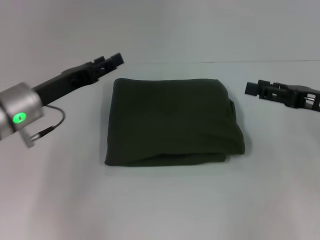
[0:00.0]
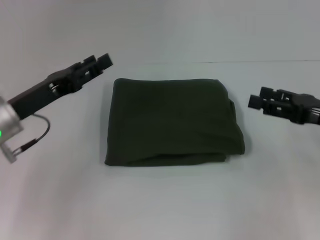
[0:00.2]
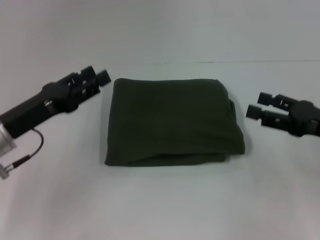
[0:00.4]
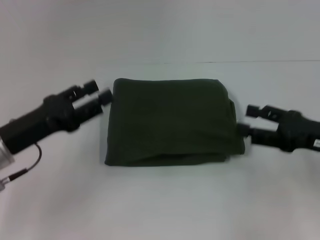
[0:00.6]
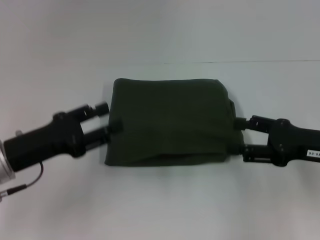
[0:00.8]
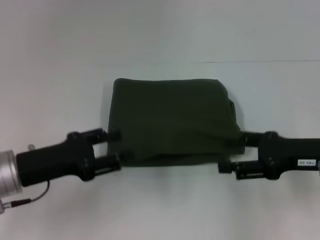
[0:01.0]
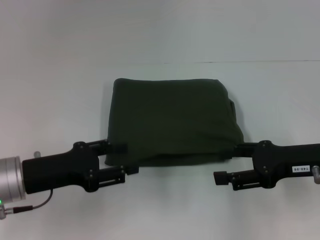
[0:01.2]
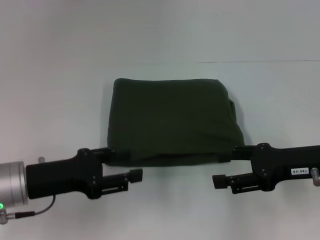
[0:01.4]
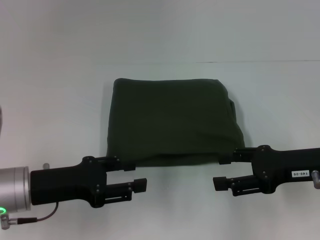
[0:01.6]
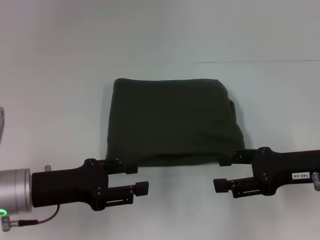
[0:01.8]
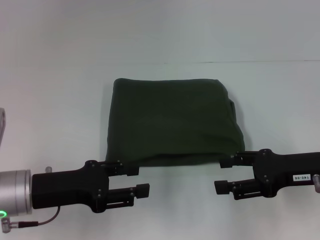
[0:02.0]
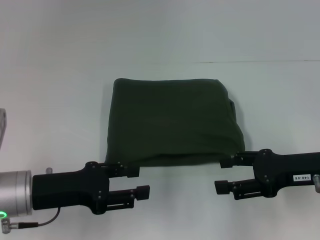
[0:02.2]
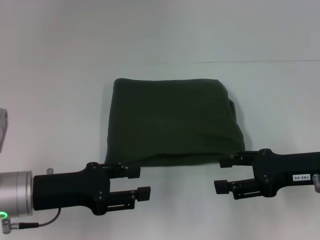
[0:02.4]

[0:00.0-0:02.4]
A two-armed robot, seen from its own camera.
0:00.0 to 0:01.2: The left gripper moves backward, about 10 cm. The right gripper shifts by roughly 5 cm.
0:01.2 to 0:02.4: The grippers make only small movements.

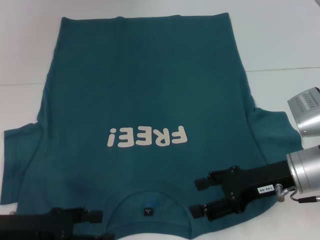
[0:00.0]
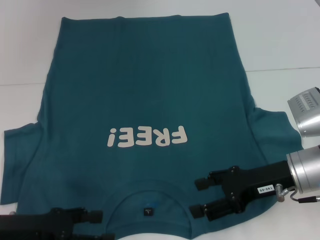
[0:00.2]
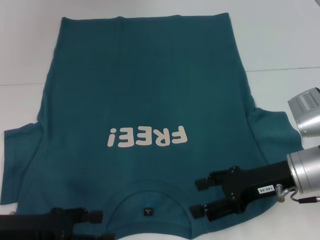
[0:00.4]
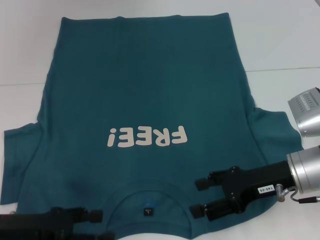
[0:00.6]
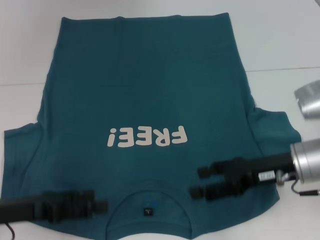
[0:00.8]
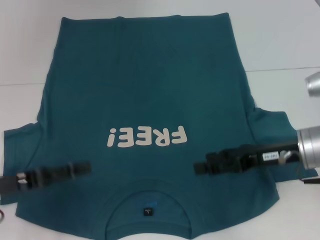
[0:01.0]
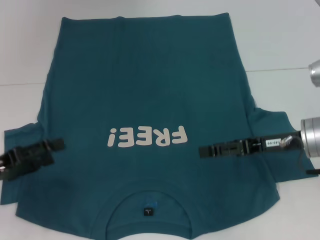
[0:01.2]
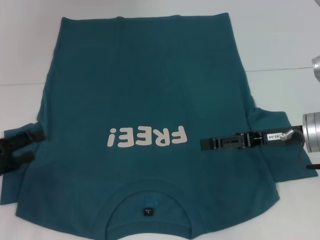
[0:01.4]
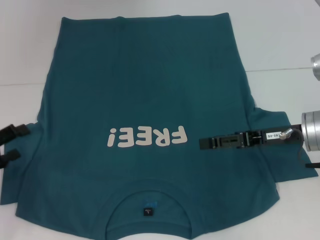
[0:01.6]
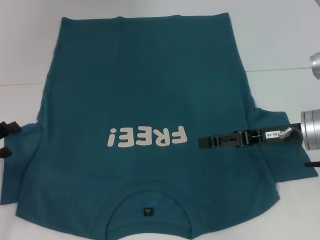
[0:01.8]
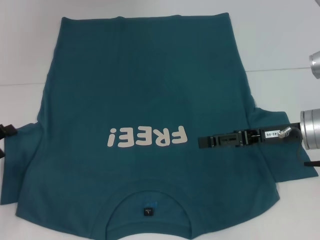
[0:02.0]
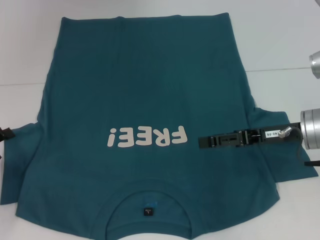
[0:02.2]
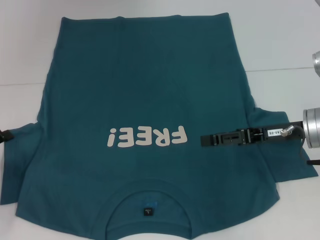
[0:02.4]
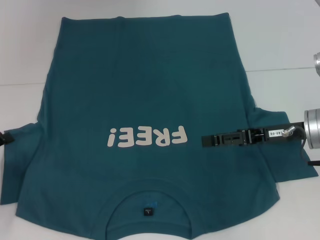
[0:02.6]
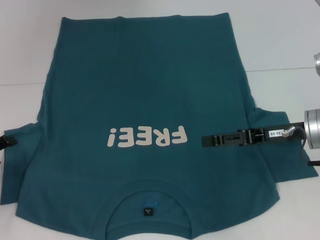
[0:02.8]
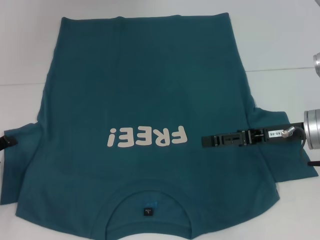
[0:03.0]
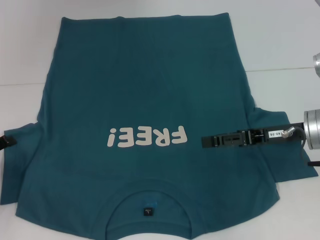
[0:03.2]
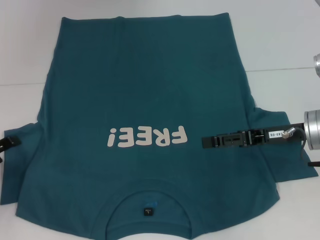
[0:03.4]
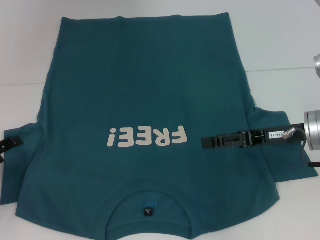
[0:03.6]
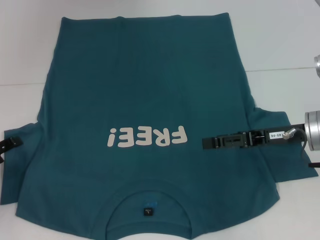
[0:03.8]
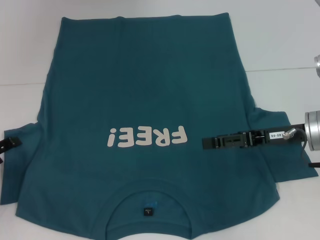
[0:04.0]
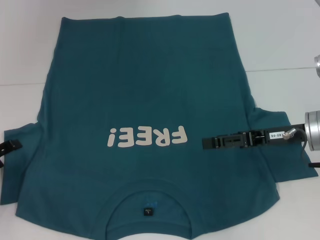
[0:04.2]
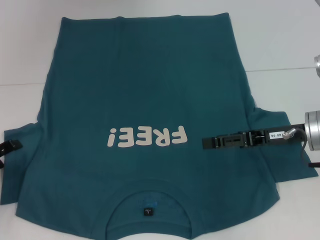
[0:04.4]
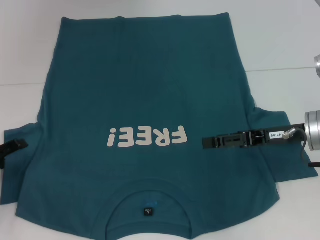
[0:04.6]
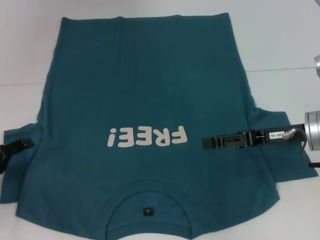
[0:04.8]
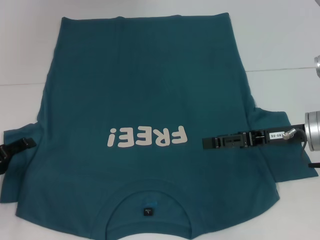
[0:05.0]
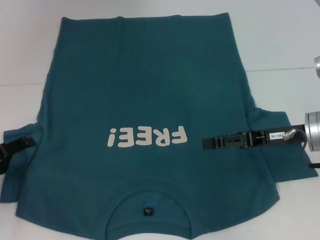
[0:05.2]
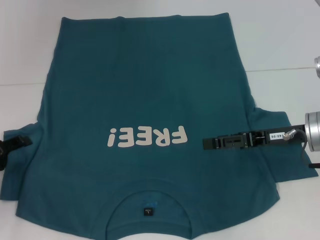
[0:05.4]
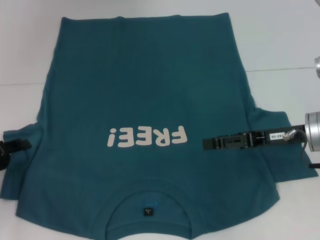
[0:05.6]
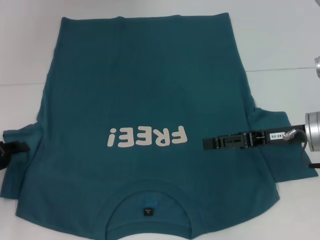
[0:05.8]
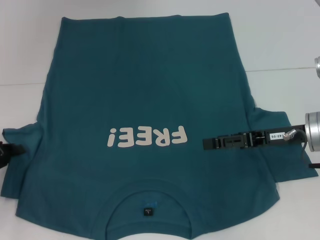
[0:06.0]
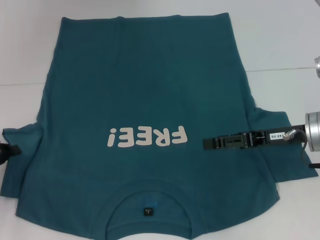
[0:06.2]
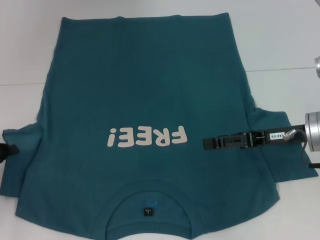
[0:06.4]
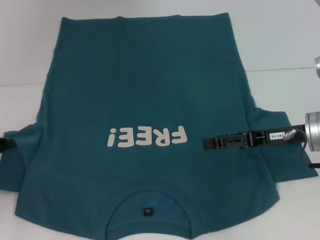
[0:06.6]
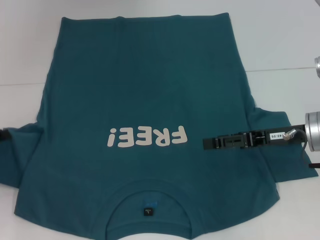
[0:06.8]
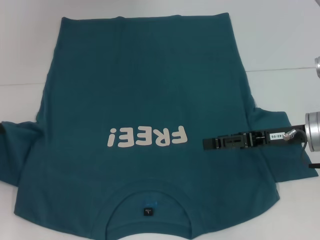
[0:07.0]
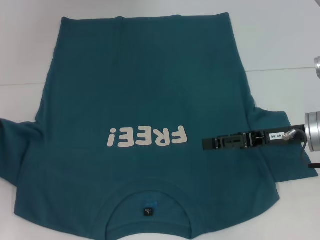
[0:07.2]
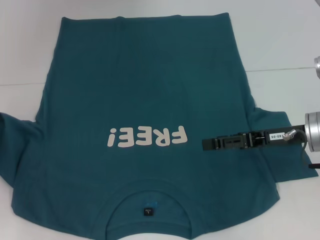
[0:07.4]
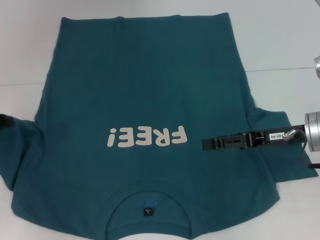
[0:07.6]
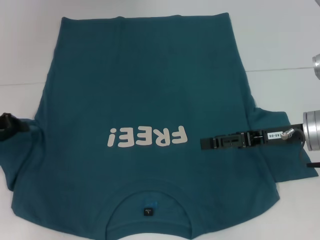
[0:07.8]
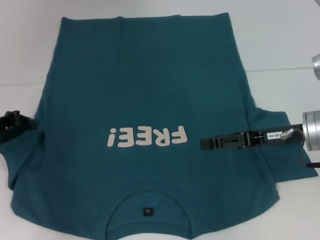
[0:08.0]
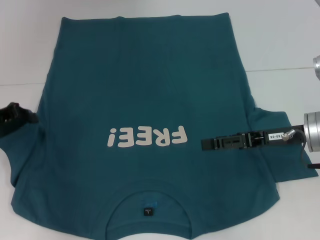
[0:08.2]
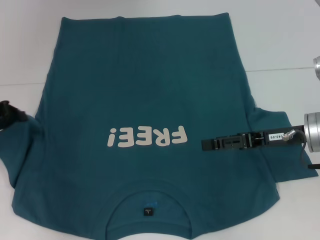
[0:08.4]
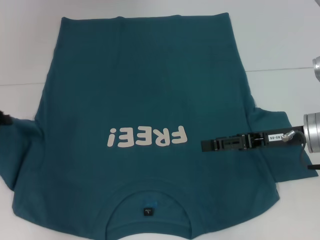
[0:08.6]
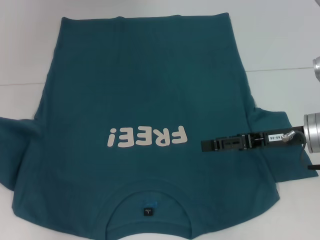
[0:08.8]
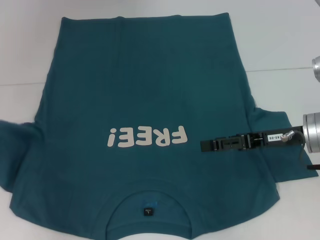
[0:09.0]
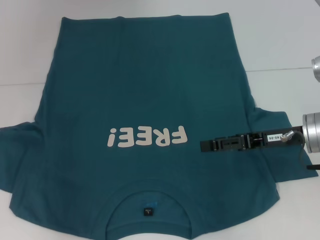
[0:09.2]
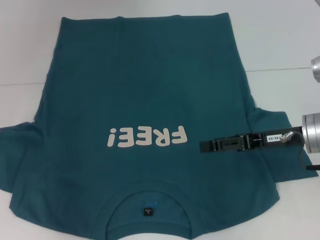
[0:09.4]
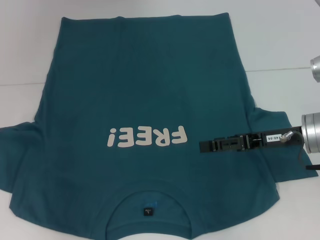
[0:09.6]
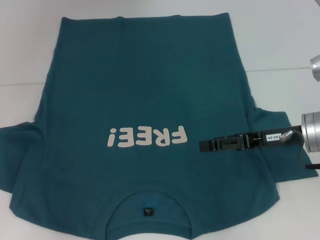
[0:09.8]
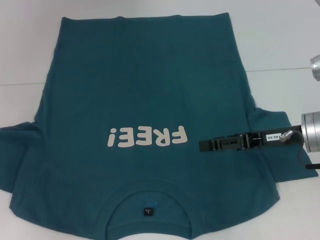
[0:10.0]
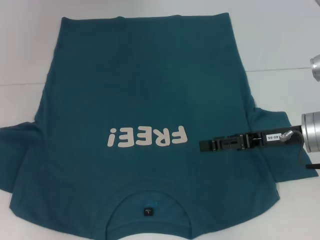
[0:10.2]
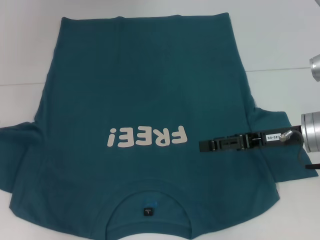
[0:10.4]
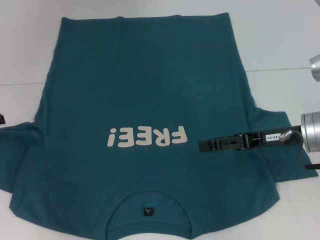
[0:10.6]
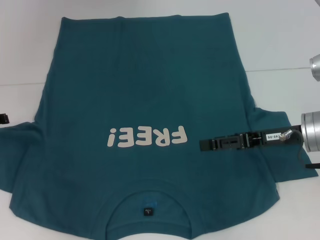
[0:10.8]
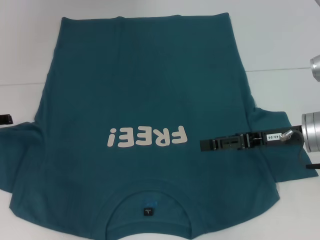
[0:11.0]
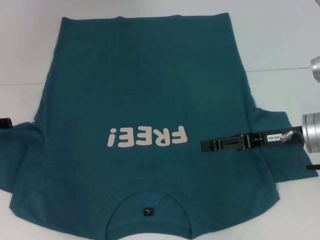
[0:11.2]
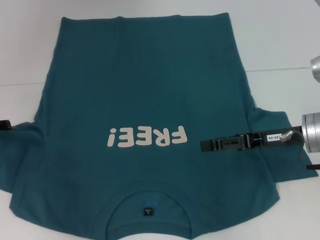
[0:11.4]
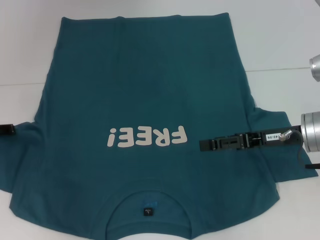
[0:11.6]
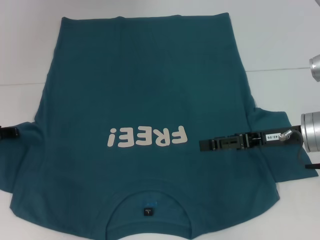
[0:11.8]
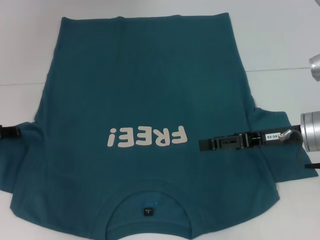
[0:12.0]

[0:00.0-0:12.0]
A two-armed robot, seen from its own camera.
0:00.0 to 0:01.6: The right gripper shifts by roughly 5 cm, while the left gripper heads to the left, covering about 10 cm.
0:01.6 to 0:03.0: The grippers stay close to where they were, moving slightly.
0:03.0 to 0:04.4: The two grippers keep their place.
0:04.4 to 0:06.0: The left gripper closes up.
0:06.0 to 0:07.6: The left gripper travels upward by some 5 cm.
0:07.6 to 0:09.0: The grippers stay close to where they were, moving slightly.

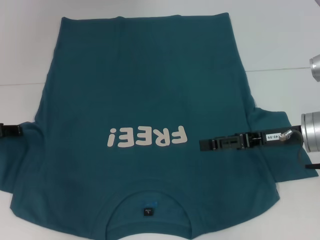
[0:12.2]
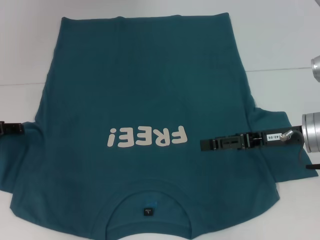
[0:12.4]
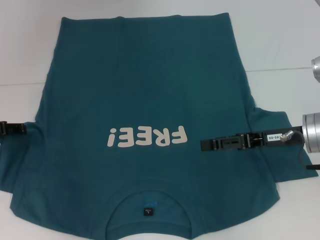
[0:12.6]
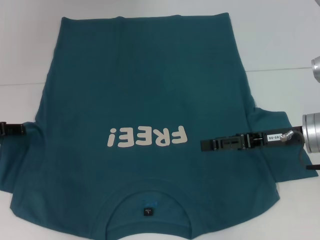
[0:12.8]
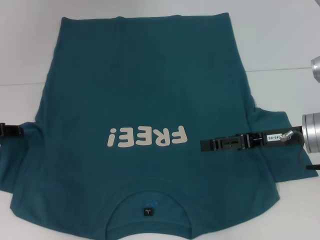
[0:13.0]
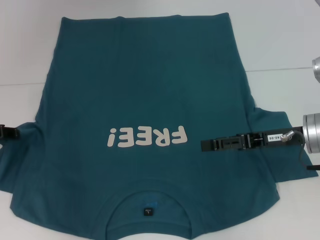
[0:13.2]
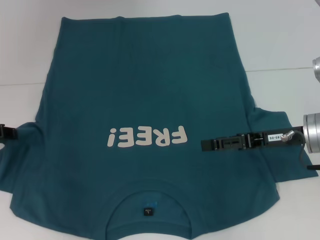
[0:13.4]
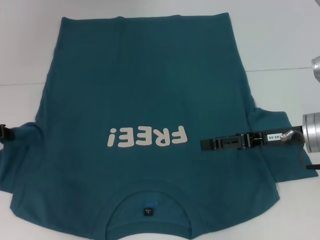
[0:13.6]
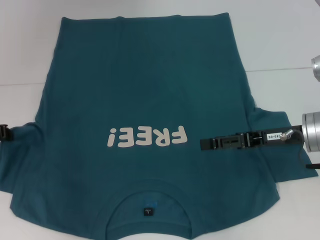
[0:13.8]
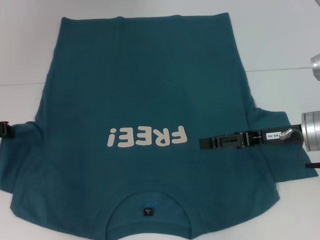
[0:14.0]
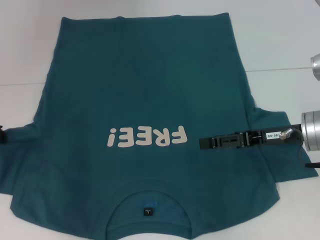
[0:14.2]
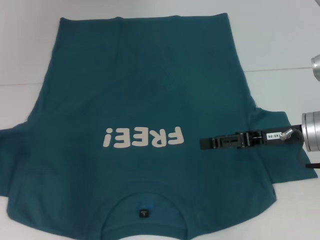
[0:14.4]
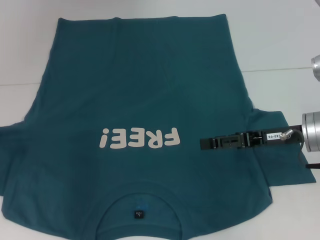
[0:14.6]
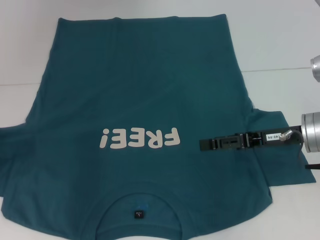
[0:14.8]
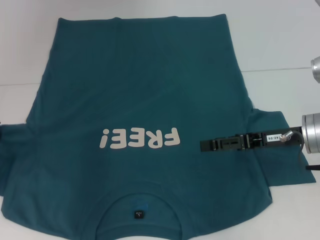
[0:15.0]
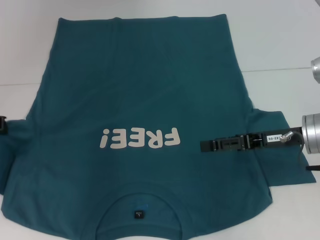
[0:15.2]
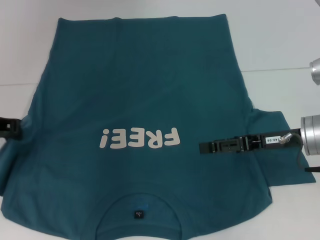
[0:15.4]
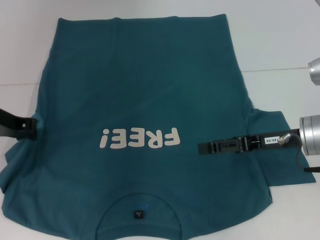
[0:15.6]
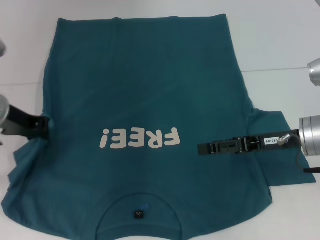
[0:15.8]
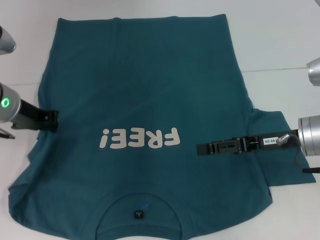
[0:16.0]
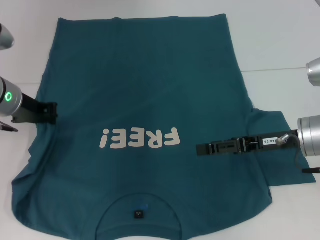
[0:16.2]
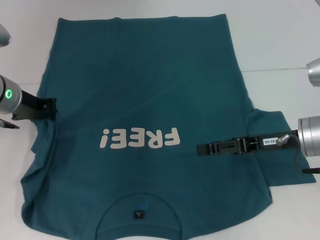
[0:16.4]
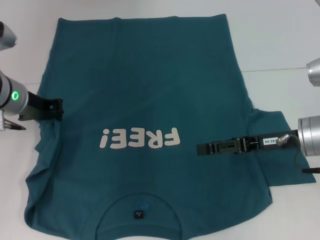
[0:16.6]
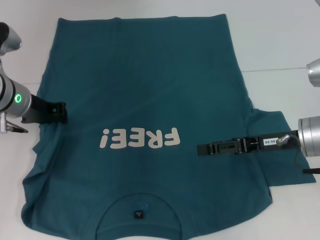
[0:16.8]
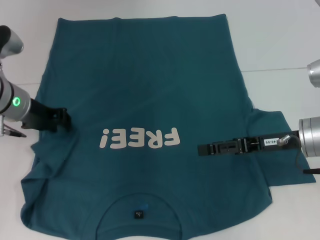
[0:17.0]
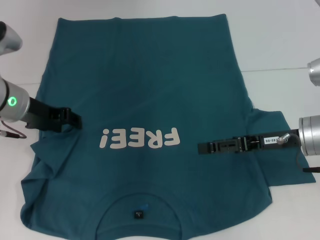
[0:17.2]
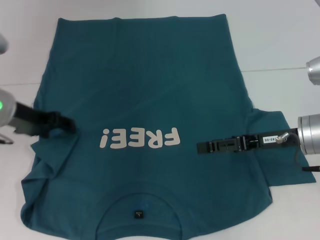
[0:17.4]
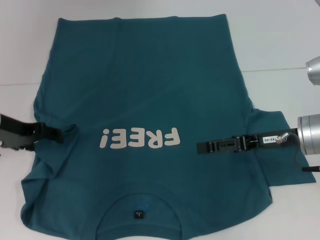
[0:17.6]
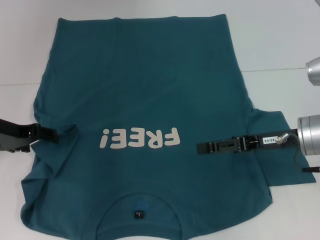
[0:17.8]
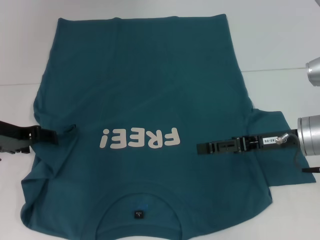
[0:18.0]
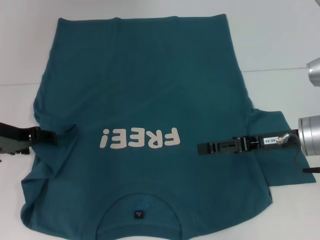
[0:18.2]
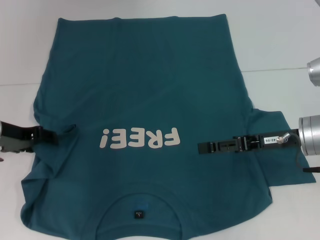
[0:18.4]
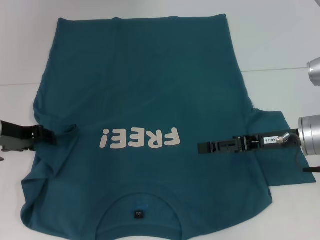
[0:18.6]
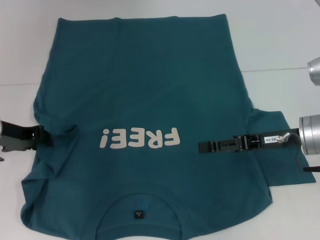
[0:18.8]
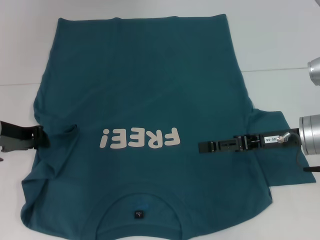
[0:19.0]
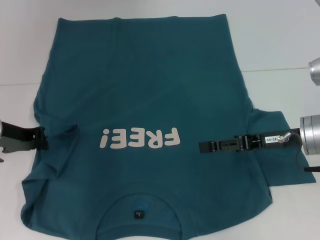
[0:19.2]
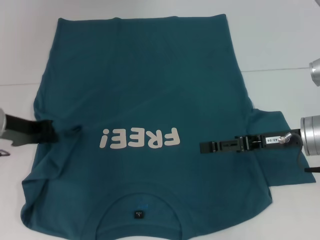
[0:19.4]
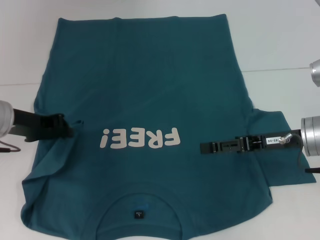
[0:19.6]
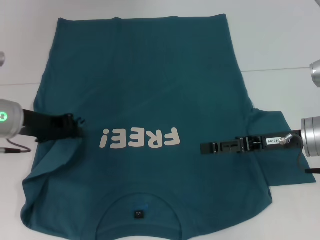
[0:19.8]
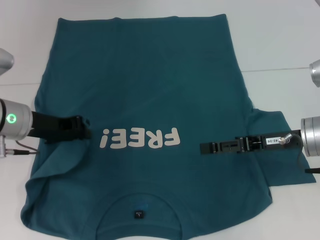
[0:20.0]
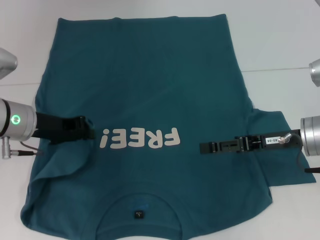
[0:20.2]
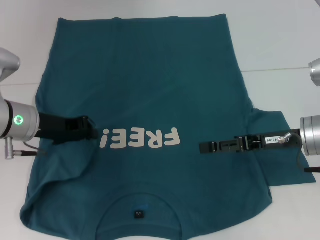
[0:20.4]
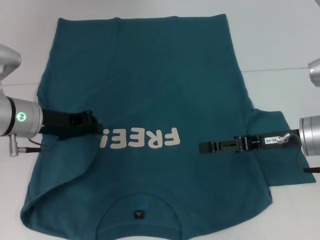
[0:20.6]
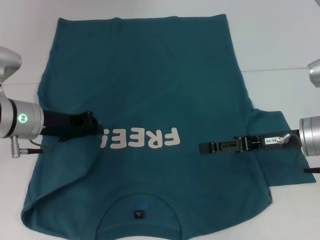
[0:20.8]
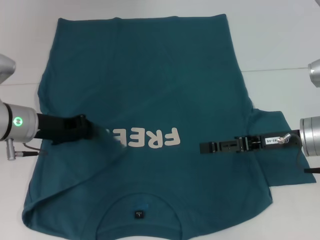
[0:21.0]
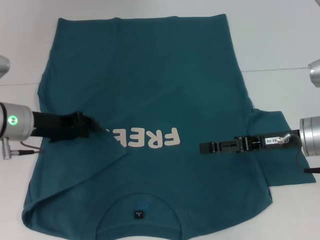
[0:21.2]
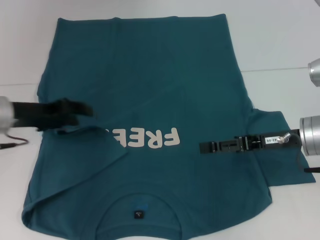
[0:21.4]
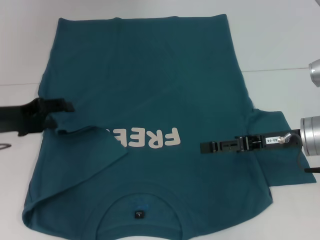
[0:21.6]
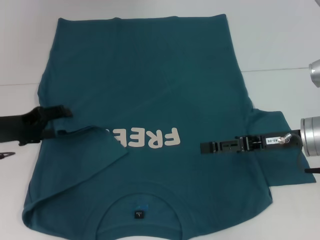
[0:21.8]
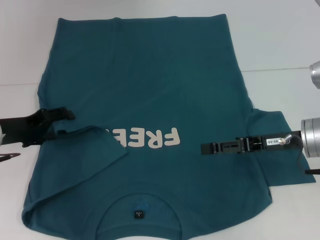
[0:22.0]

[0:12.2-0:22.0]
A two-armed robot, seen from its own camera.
0:13.6 to 0:15.0: The left gripper closes its fingers.
0:15.0 to 0:16.4: The left gripper is displaced to the right by about 10 cm.
0:16.4 to 0:17.8: The left gripper changes place by approximately 5 cm, and opens up.
0:17.8 to 0:19.2: The left gripper closes up.
0:19.2 to 0:20.6: The left gripper travels to the right by approximately 5 cm.
0:20.6 to 0:22.0: The left gripper travels to the left by some 5 cm, and opens up.
